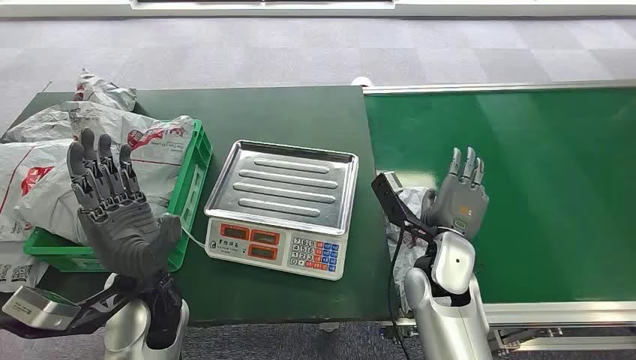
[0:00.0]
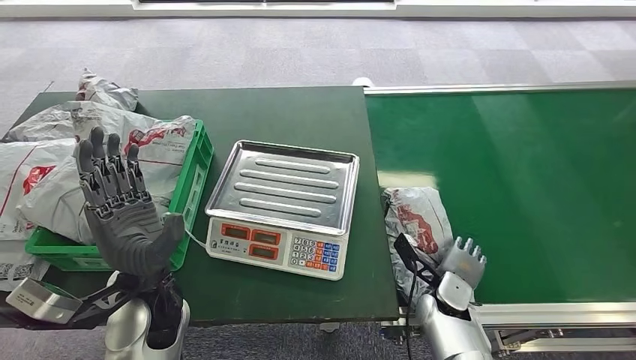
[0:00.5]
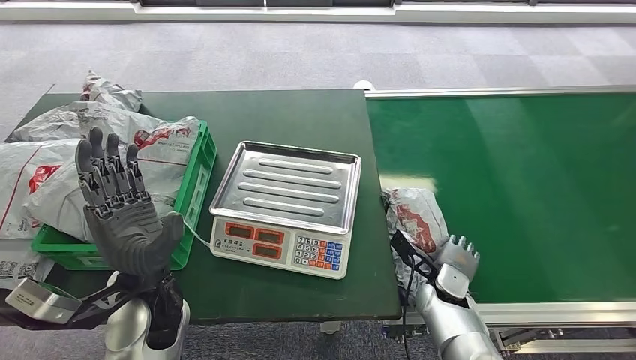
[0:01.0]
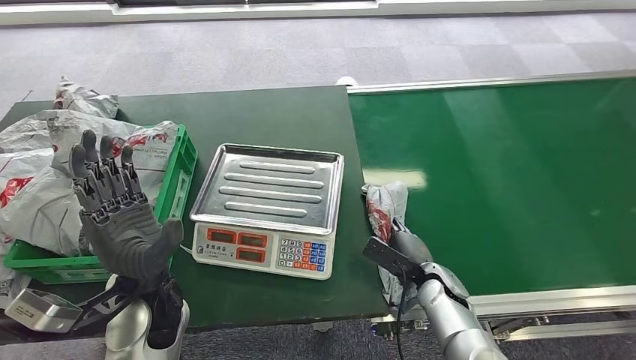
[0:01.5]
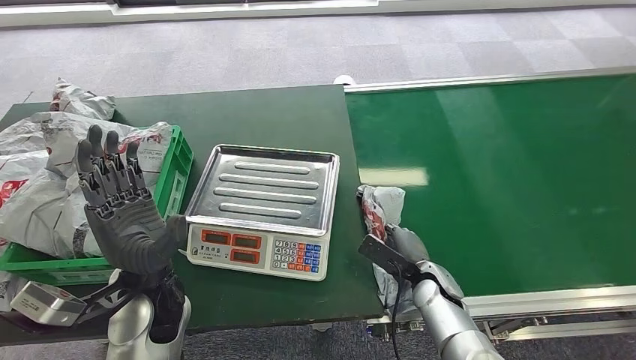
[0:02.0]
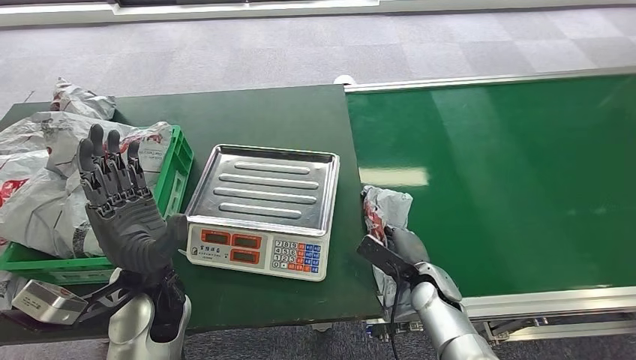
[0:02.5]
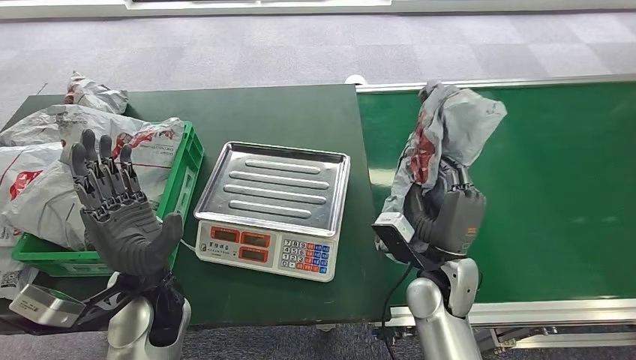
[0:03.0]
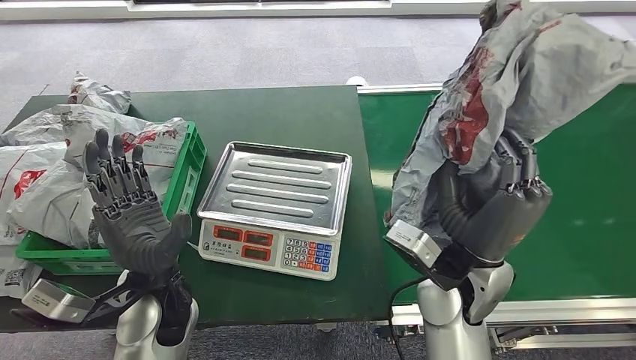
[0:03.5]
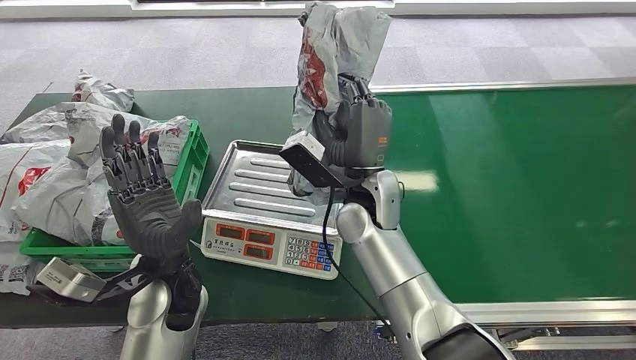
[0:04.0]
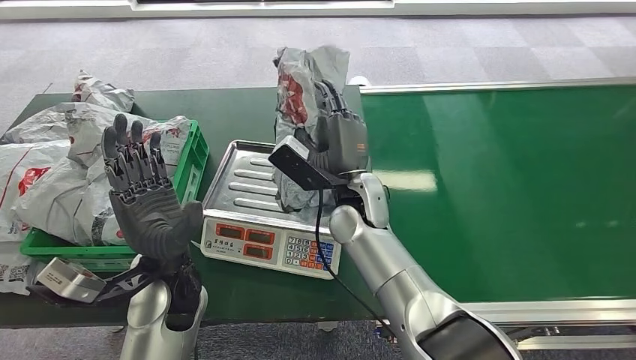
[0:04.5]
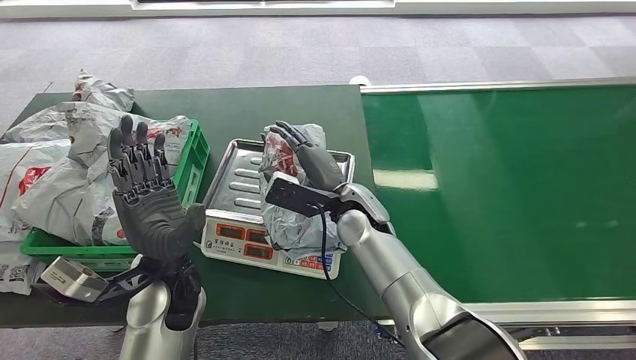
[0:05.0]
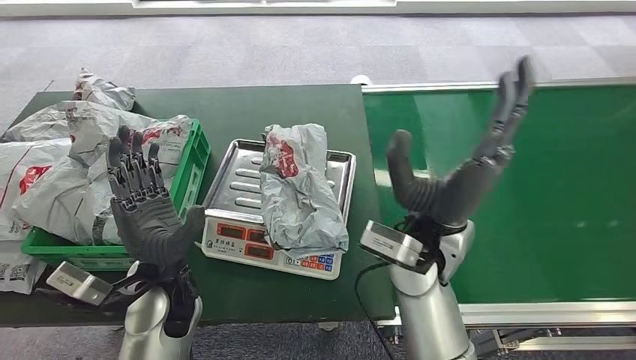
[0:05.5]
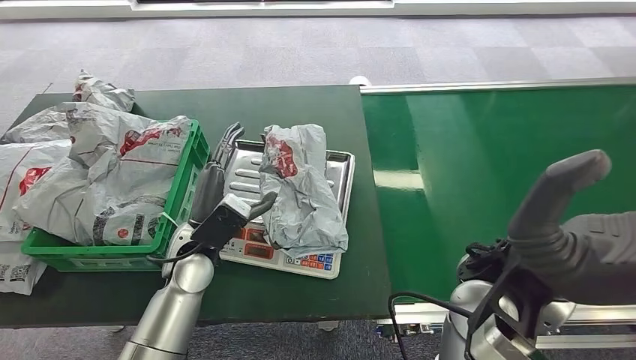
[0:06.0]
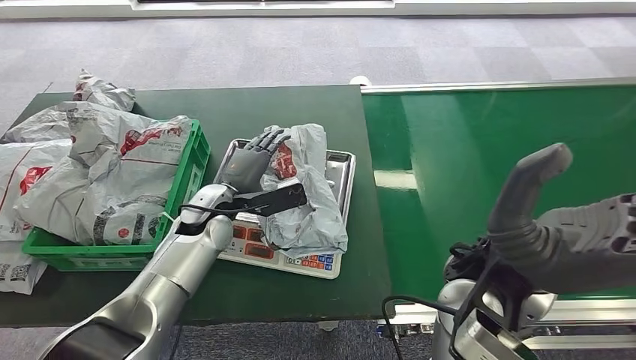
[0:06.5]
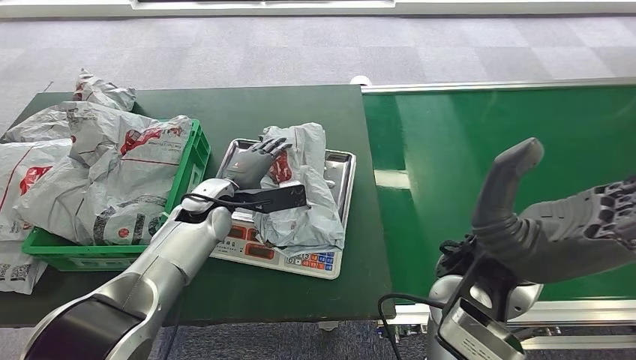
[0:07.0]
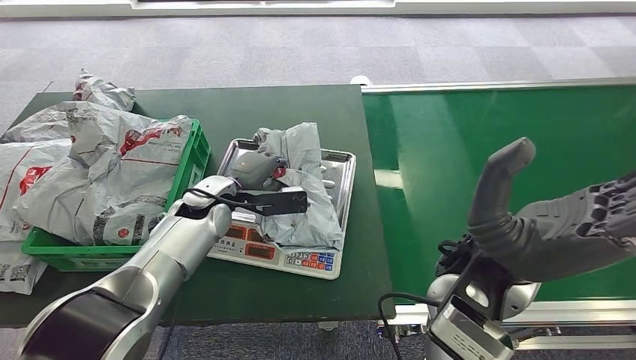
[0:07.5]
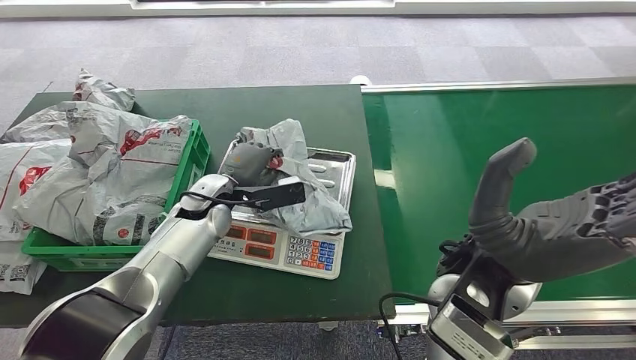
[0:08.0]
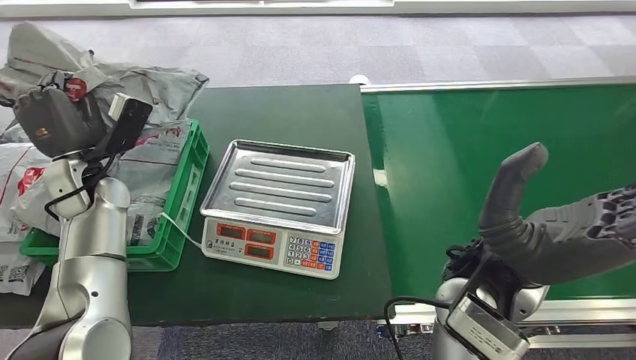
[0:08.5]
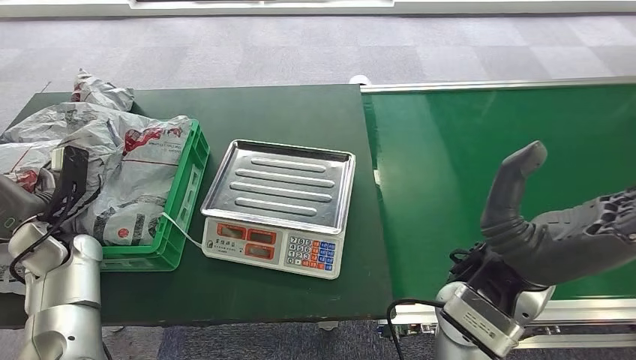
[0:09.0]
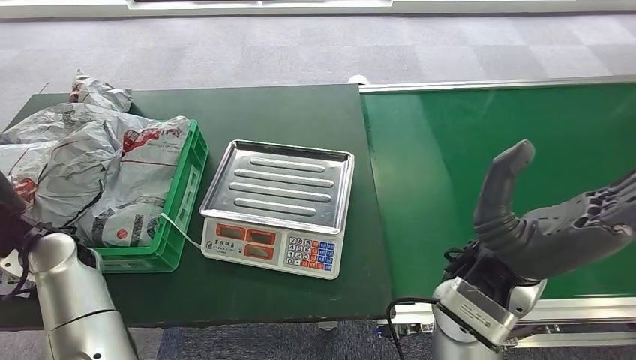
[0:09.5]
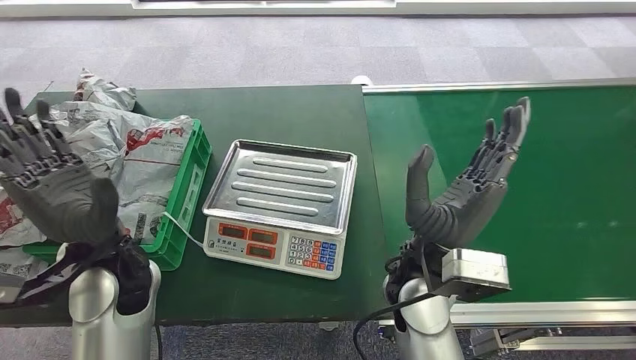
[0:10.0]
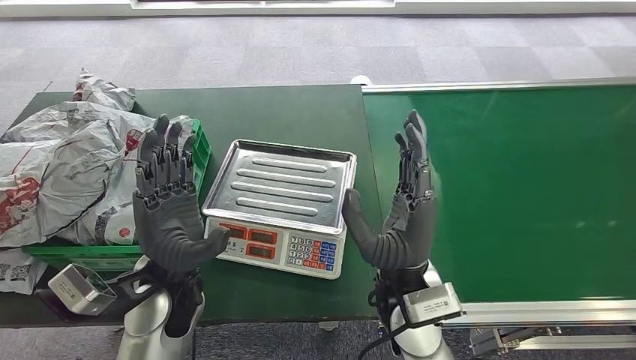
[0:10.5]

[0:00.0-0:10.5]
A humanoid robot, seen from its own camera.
Step, 0:00.0 to 0:04.0: Pick up the package from the conveyor belt.
Step, 0:04.5 to 0:06.0: Place the package onto the inbound machine.
Step, 0:06.5 to 0:08.5: Pick up the package from the inbound machine.
Step, 0:09.0 to 0:10.5: Place the package into the parcel locker.
